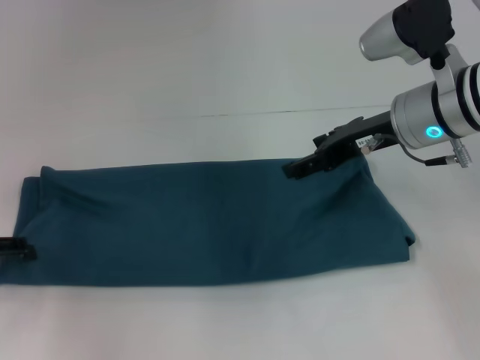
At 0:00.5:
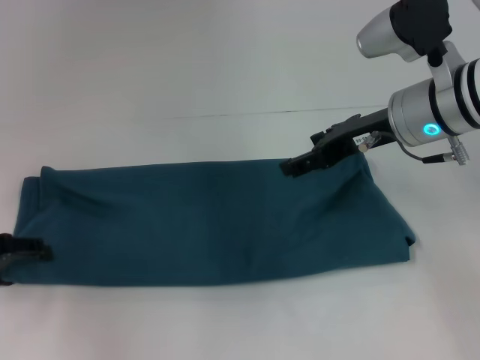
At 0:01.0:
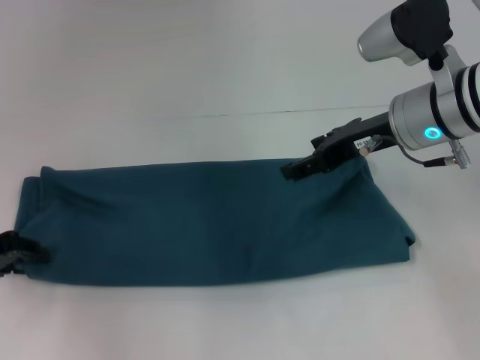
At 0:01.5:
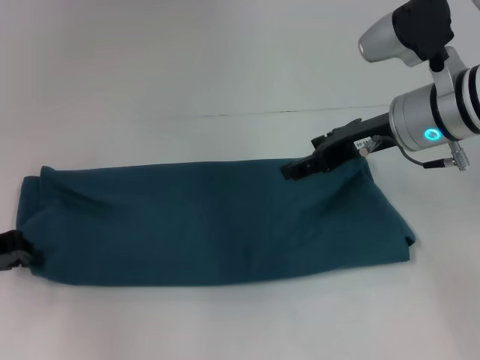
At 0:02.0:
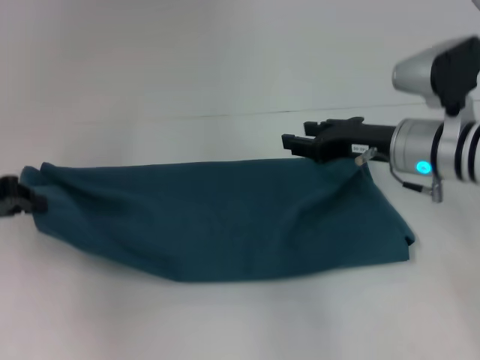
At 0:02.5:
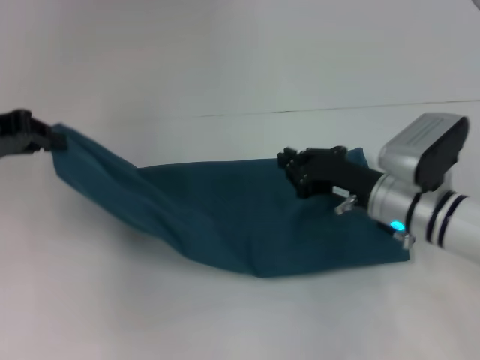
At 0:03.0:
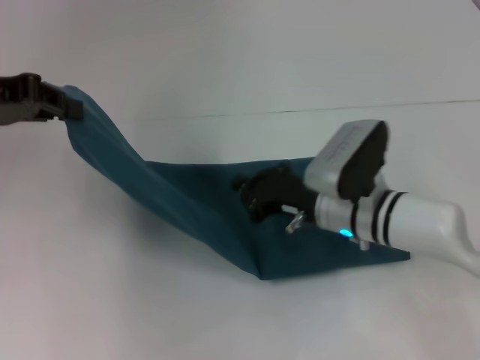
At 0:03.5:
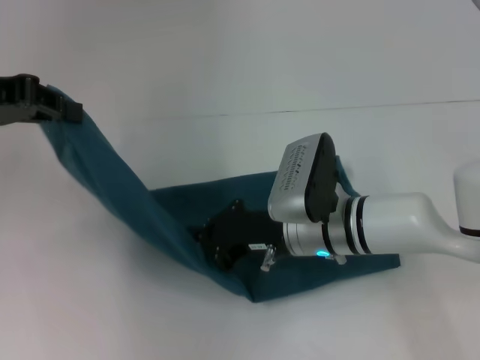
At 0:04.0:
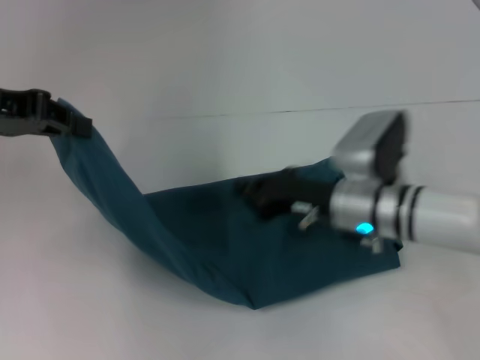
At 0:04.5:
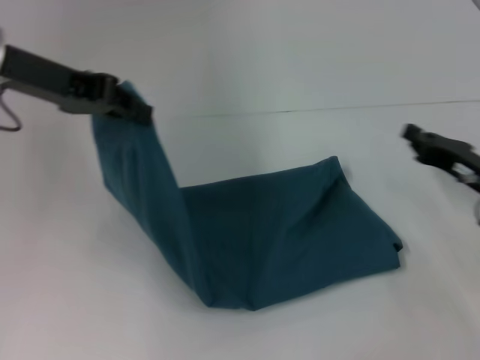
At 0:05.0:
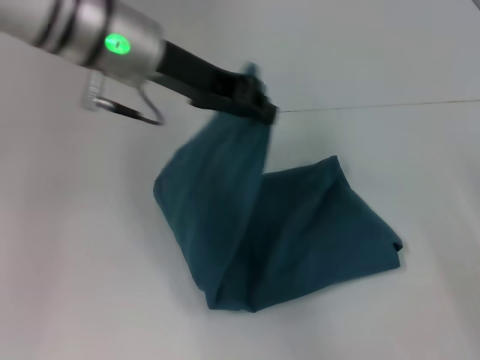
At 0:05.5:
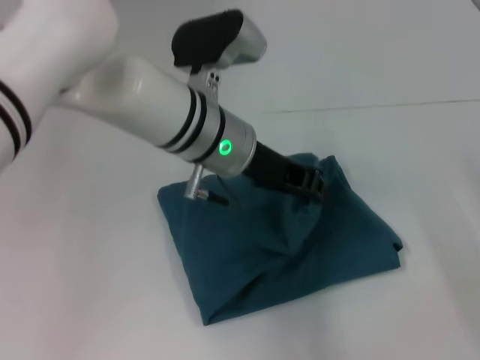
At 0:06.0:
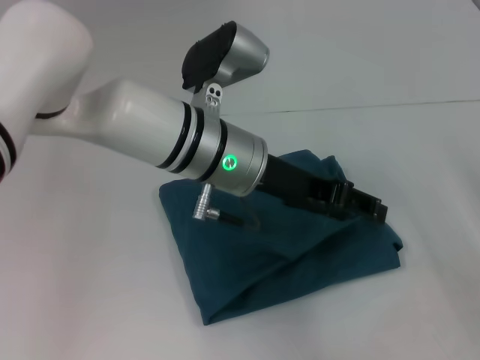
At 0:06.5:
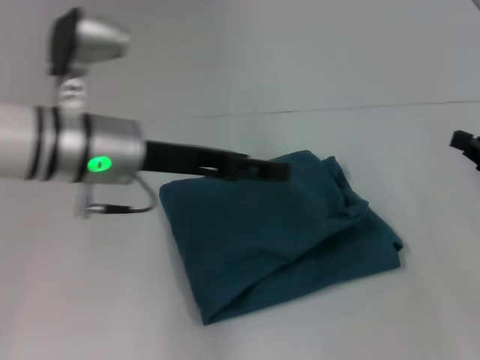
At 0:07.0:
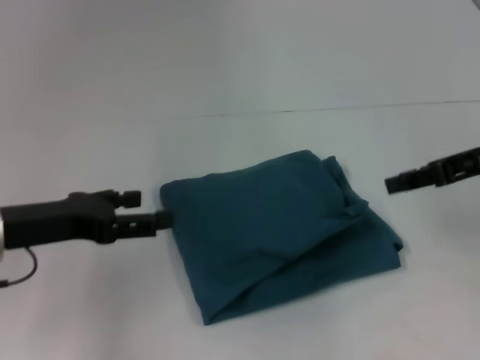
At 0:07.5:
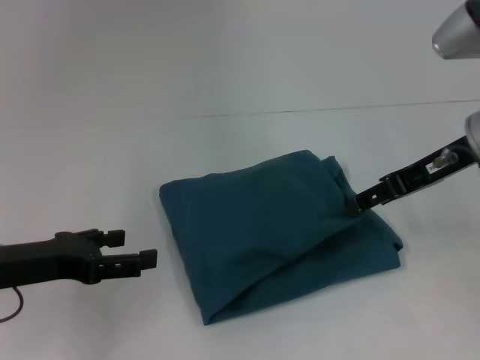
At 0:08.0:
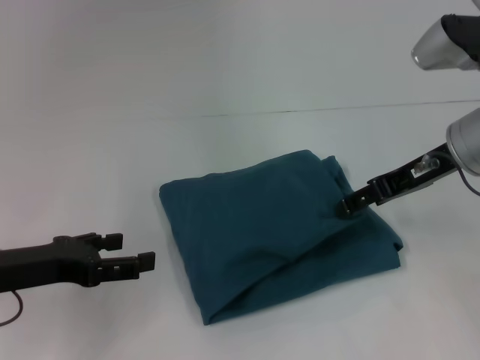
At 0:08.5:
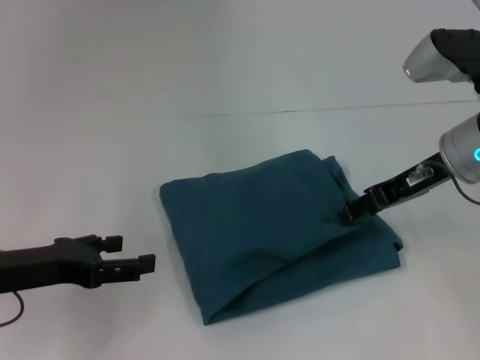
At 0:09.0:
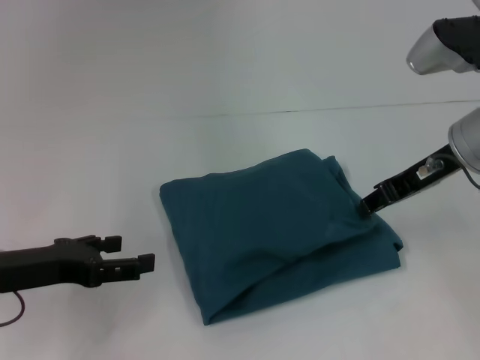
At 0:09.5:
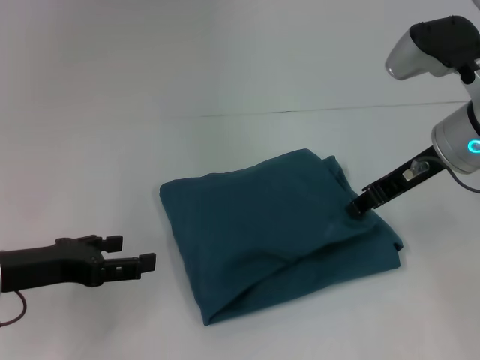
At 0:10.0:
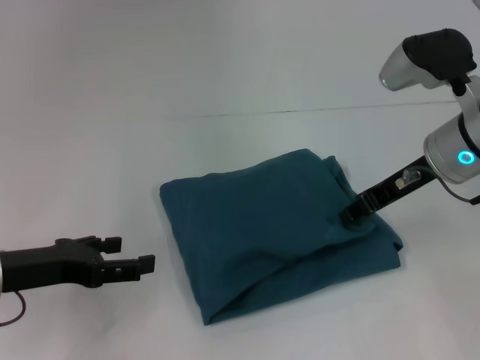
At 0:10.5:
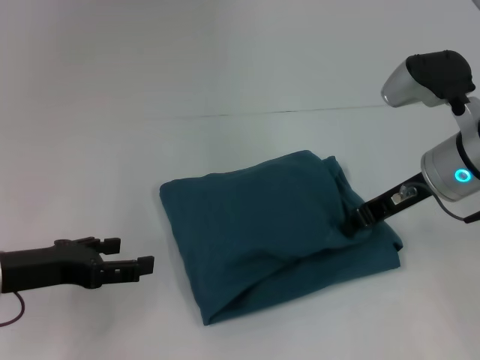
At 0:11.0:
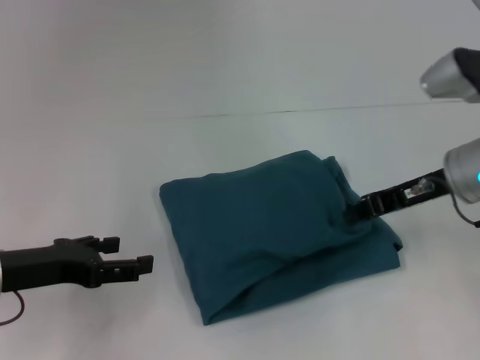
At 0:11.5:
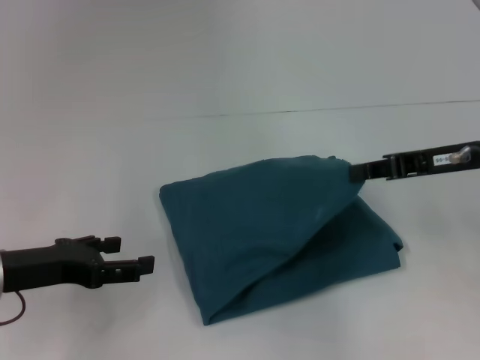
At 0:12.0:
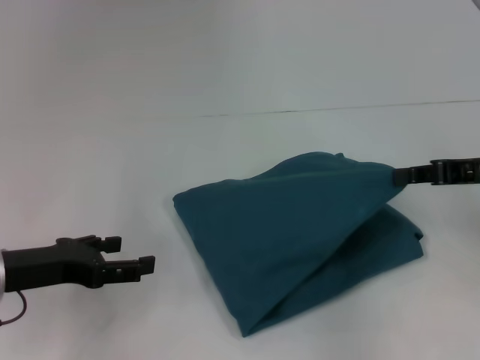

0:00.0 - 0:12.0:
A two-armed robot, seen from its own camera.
Step, 0:00.0 - 0:03.5: Press the middle of the clothes with your right hand.
Step, 0:04.0 - 0:05.5: Fold the clothes to the left.
0:00.0 - 0:02.0: The left gripper is displaced upward by some 5 cm, and closes its fingers. Meanwhile the right gripper heads downward, covering approximately 5 cm.
0:02.0 - 0:04.0: The right gripper moves downward and to the left, roughly 10 cm, and closes its fingers. The left gripper goes approximately 10 cm upward.
0:04.0 - 0:06.0: Both grippers move to the right, approximately 25 cm. The left gripper opens.
0:06.0 - 0:08.0: The left gripper moves to the left, approximately 25 cm, and opens up. The right gripper travels to the left, upward and forward by some 20 cm, and opens.
0:08.0 - 0:10.0: The right gripper closes up.
0:10.0 - 0:12.0: The right gripper heads to the right, covering some 10 cm, and closes its fingers.

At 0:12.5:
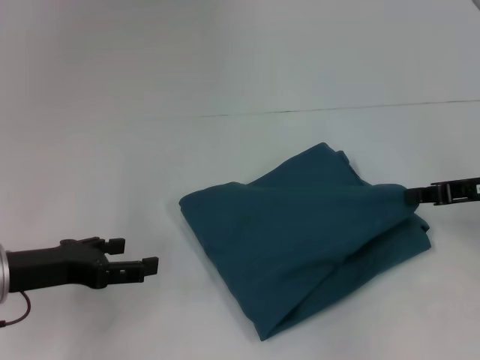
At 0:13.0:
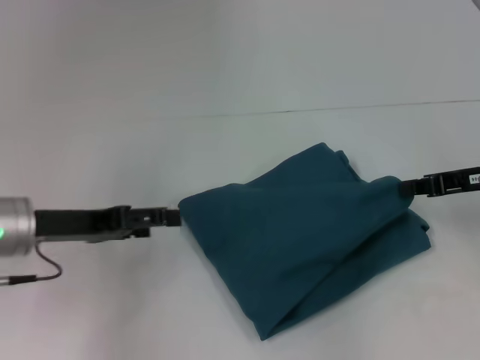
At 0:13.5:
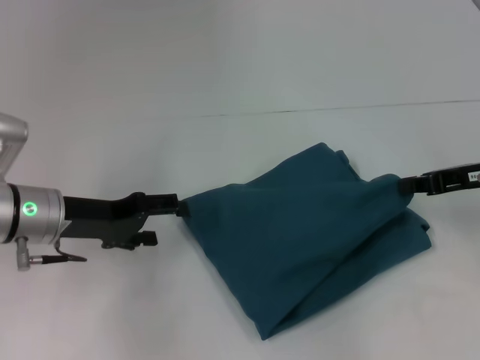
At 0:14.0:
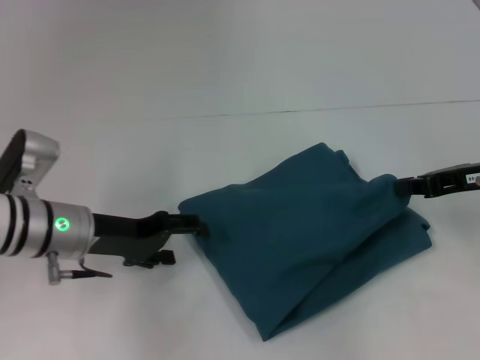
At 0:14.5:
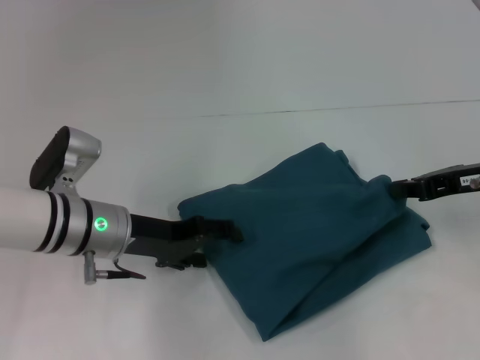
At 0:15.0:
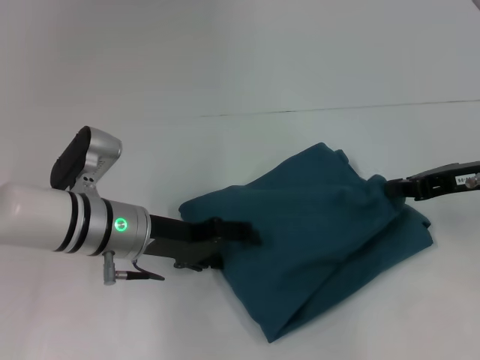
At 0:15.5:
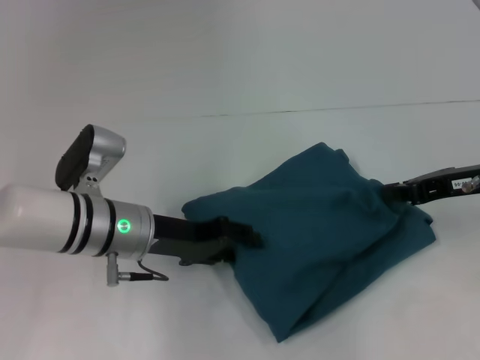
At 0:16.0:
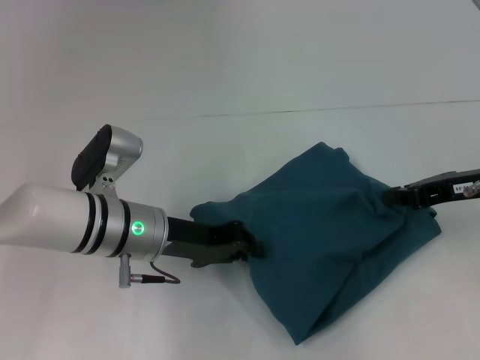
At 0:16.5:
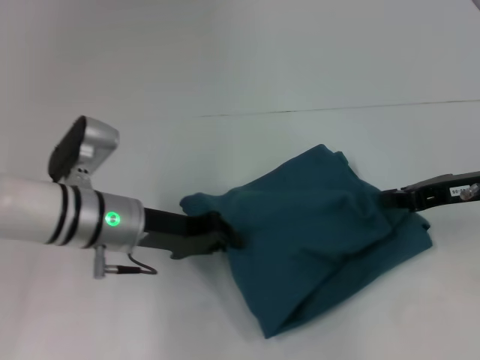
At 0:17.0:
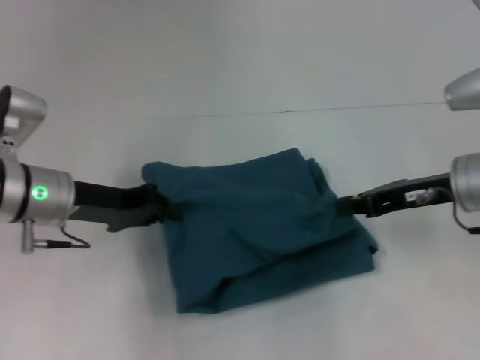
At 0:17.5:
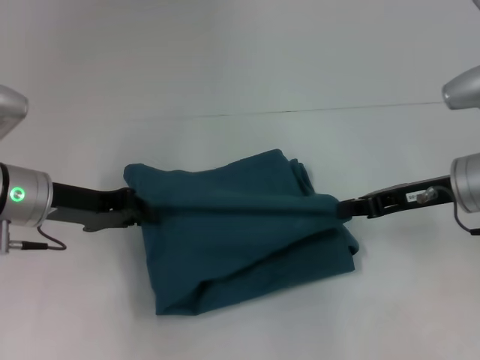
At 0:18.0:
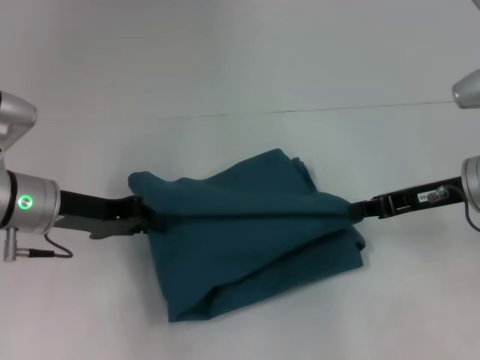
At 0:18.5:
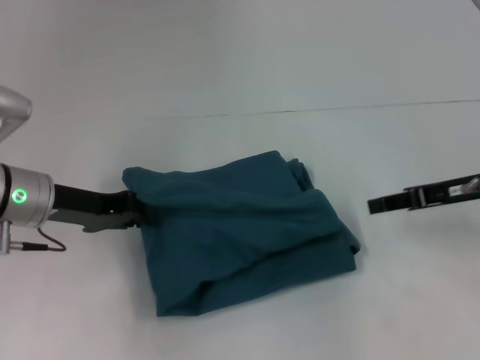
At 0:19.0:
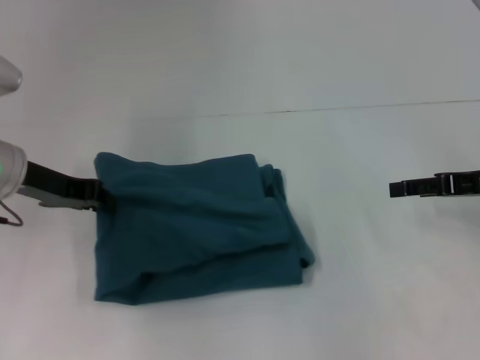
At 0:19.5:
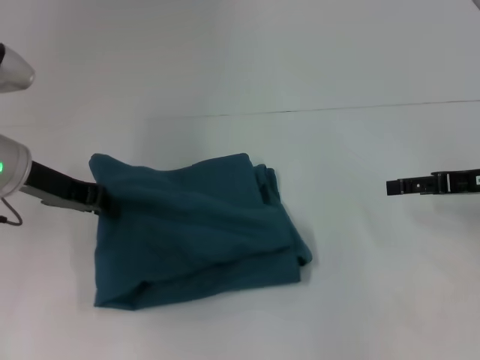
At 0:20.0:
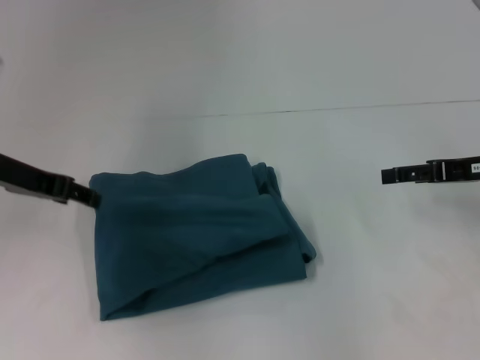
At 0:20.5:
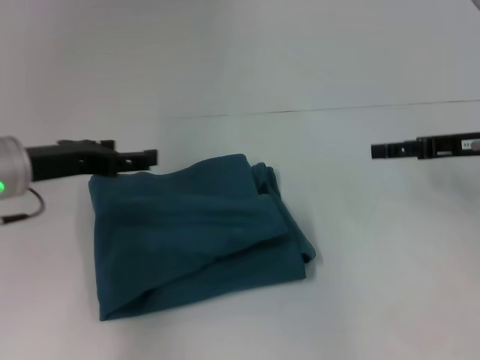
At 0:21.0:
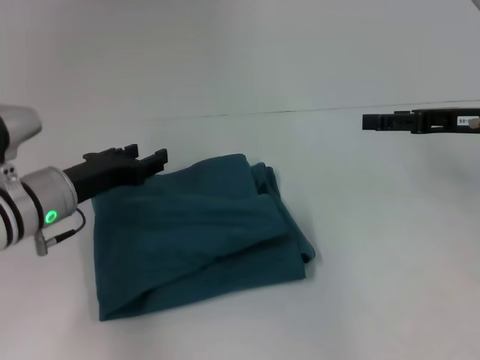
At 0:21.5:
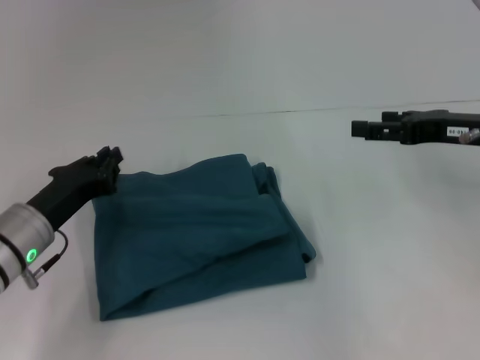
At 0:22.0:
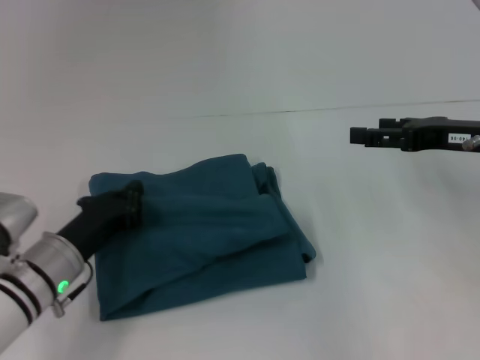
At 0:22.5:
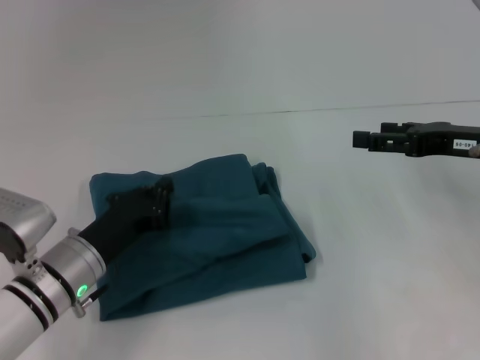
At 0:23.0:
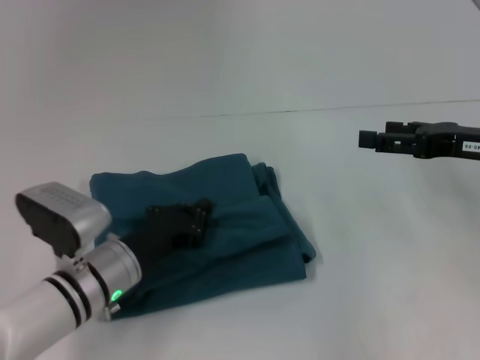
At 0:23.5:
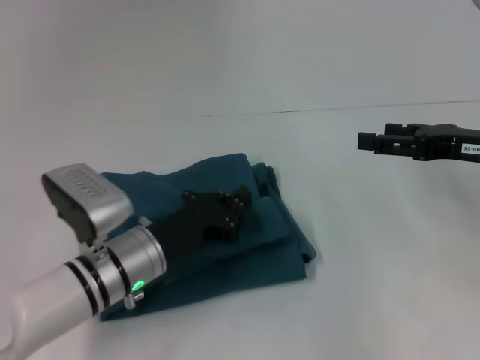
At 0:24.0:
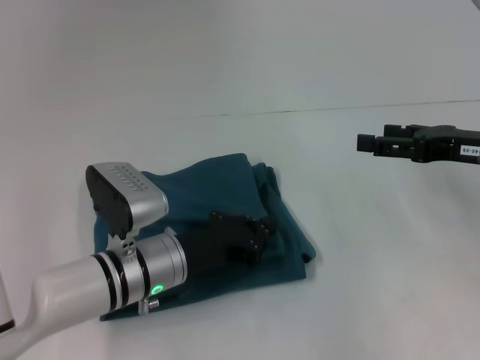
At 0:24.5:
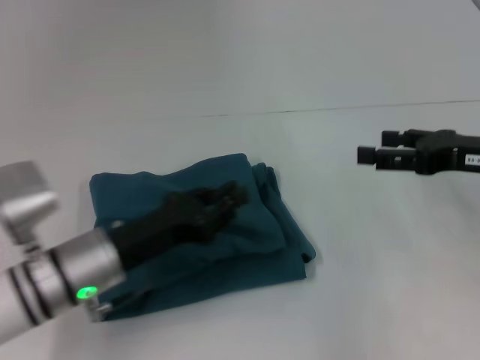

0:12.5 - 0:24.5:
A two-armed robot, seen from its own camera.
0:12.5 - 0:14.5: The left gripper travels to the right and forward by approximately 10 cm.
0:14.5 - 0:16.5: The left gripper closes.
0:16.5 - 0:18.5: The left gripper shifts roughly 10 cm to the left.
0:18.5 - 0:20.5: The right gripper opens its fingers. Meanwhile the left gripper opens.
0:20.5 - 0:22.5: The left gripper heads downward and backward, covering some 15 cm, and closes up.

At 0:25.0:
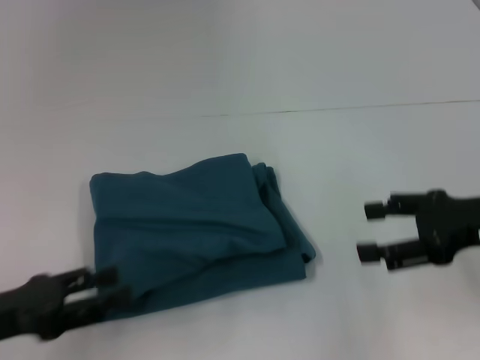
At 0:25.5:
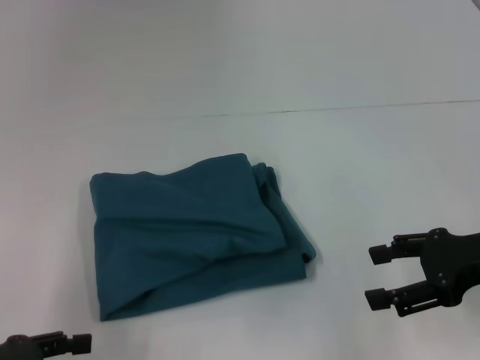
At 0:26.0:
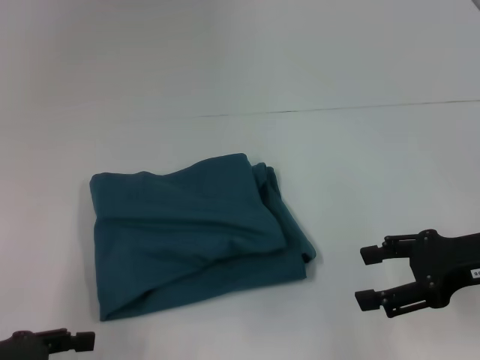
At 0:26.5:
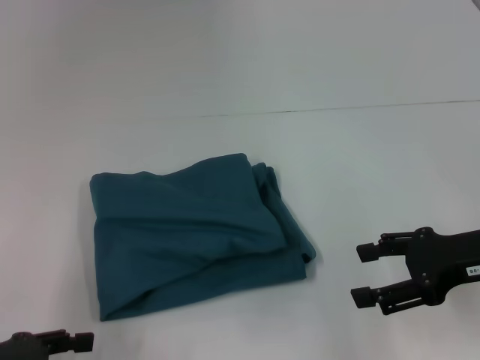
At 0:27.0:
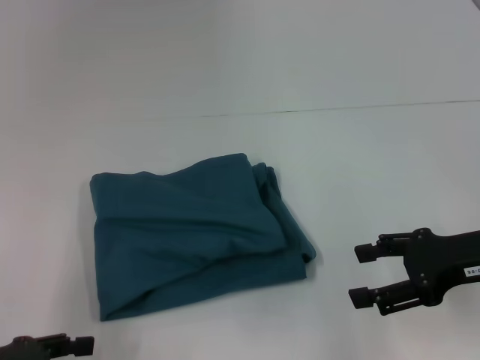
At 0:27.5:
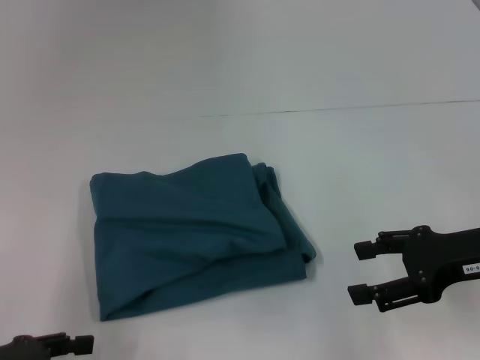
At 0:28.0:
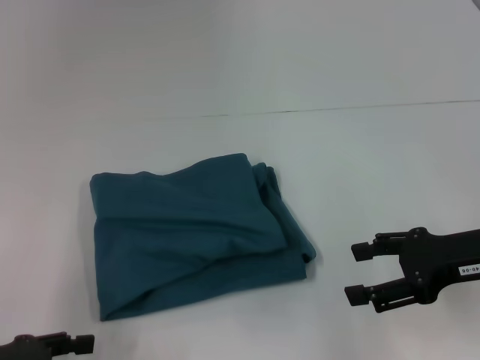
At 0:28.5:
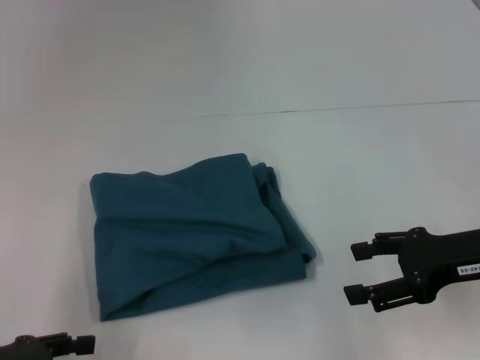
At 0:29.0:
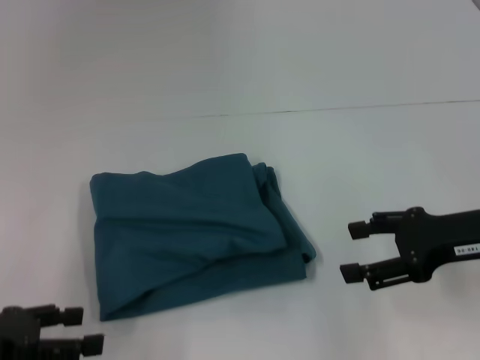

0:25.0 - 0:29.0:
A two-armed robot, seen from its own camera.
0:25.0 - 0:29.0: There are only small adjustments of the grippers.
